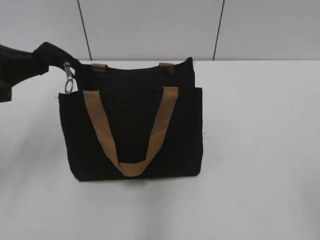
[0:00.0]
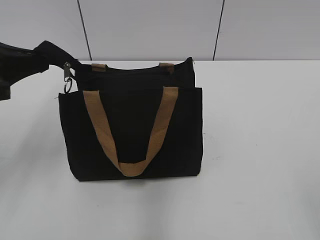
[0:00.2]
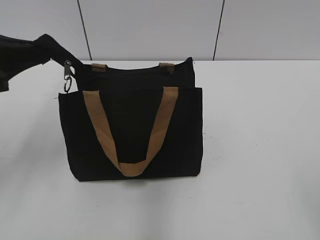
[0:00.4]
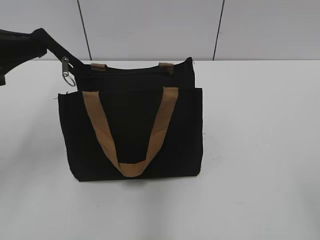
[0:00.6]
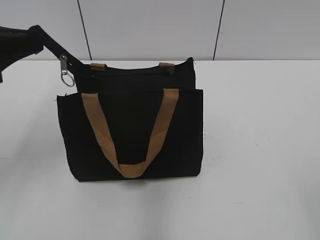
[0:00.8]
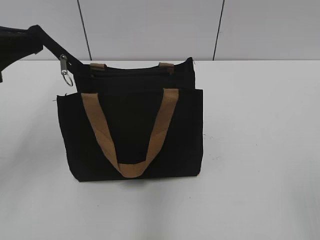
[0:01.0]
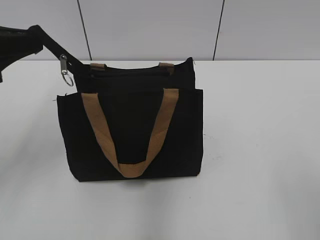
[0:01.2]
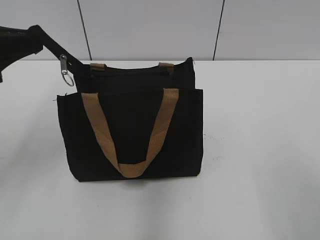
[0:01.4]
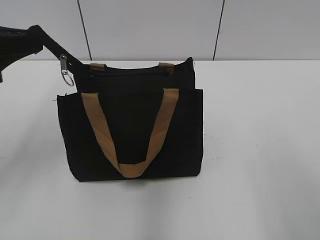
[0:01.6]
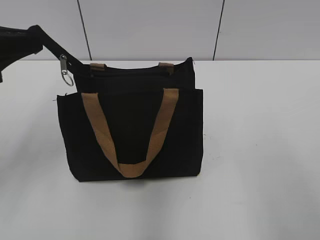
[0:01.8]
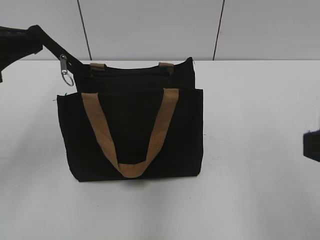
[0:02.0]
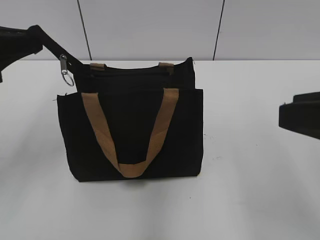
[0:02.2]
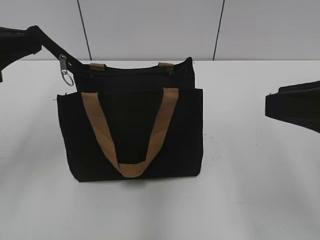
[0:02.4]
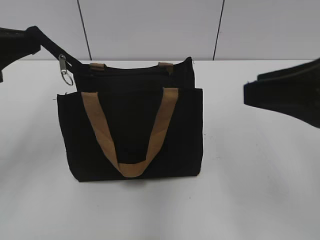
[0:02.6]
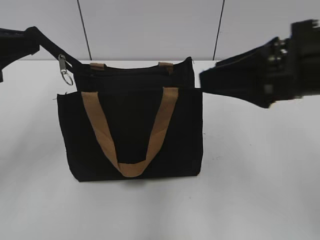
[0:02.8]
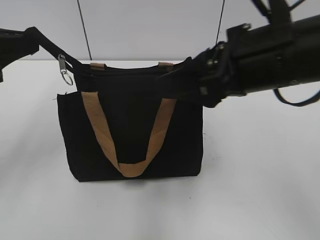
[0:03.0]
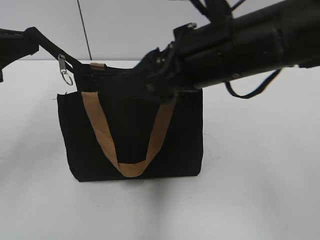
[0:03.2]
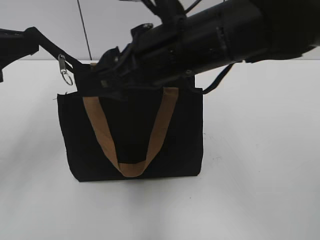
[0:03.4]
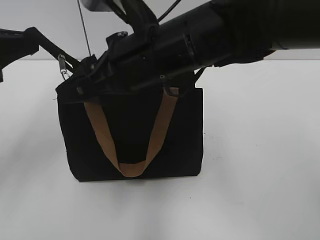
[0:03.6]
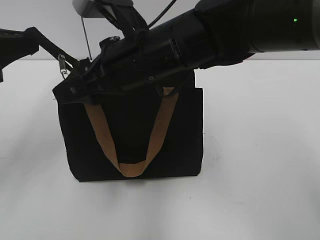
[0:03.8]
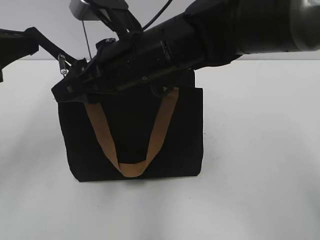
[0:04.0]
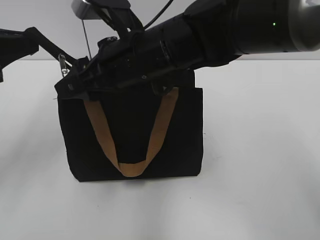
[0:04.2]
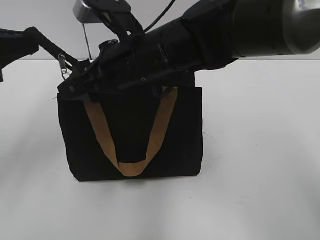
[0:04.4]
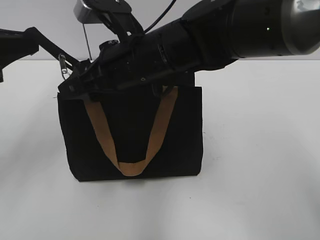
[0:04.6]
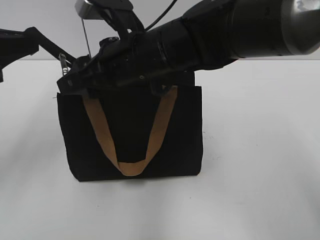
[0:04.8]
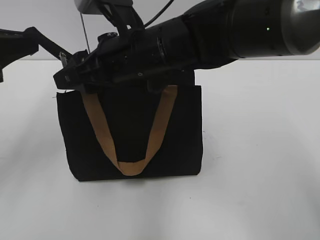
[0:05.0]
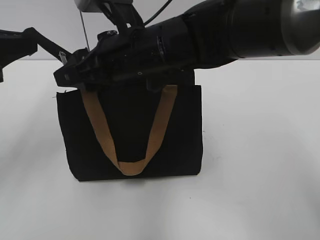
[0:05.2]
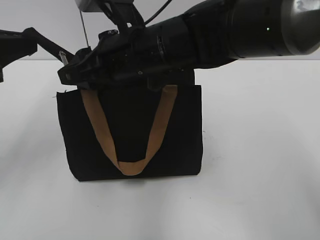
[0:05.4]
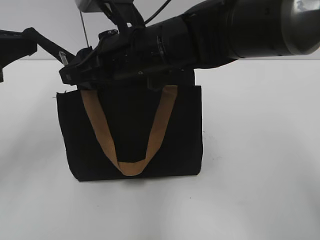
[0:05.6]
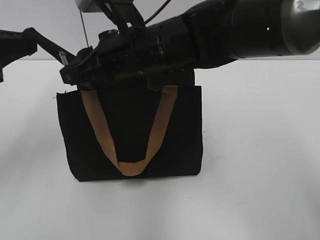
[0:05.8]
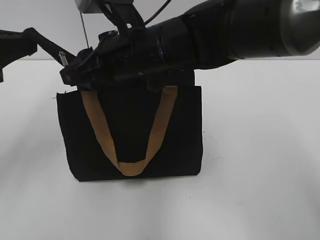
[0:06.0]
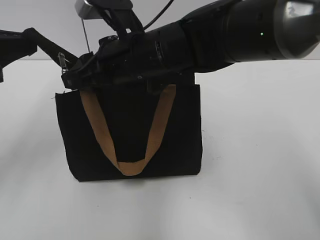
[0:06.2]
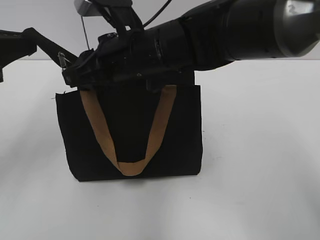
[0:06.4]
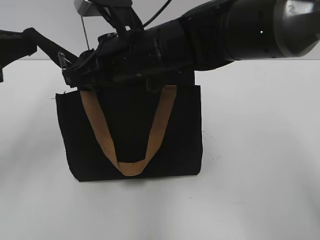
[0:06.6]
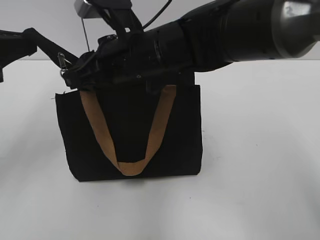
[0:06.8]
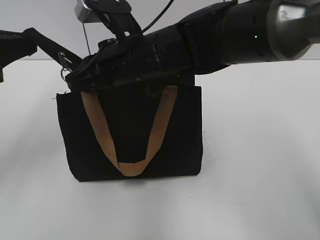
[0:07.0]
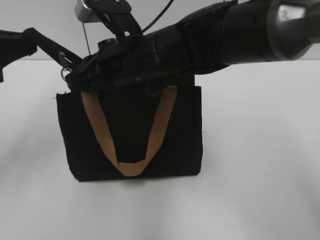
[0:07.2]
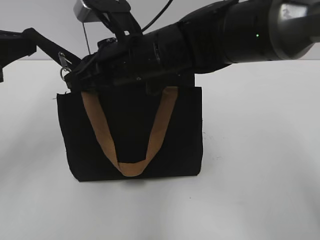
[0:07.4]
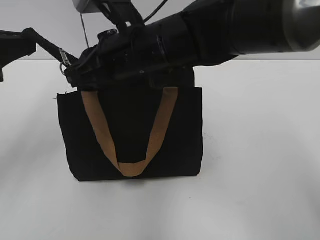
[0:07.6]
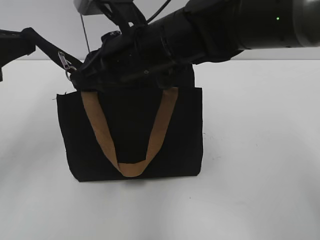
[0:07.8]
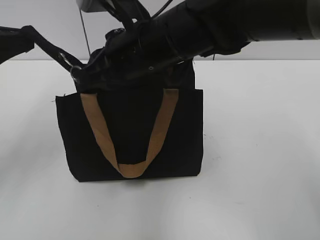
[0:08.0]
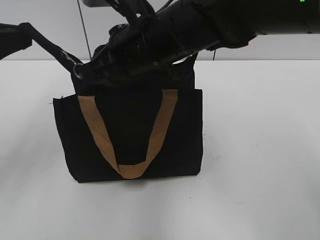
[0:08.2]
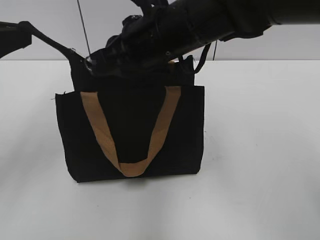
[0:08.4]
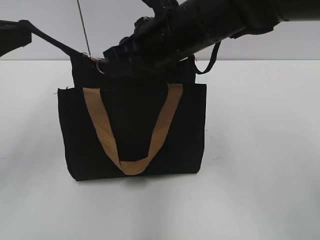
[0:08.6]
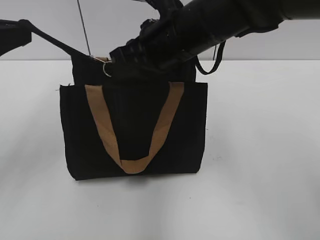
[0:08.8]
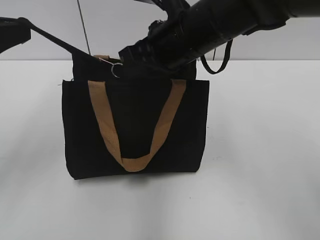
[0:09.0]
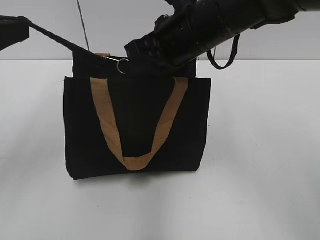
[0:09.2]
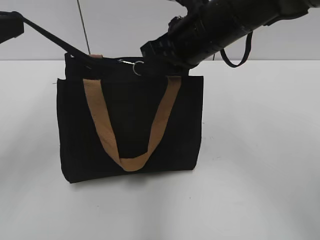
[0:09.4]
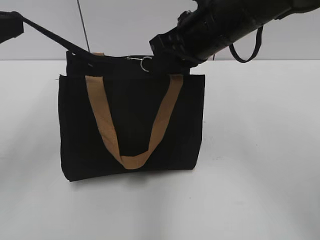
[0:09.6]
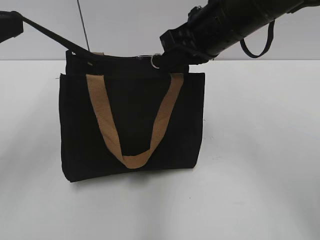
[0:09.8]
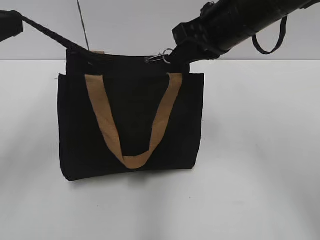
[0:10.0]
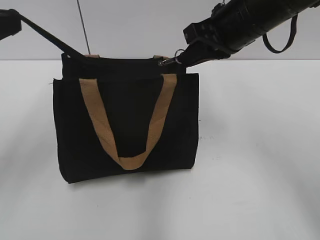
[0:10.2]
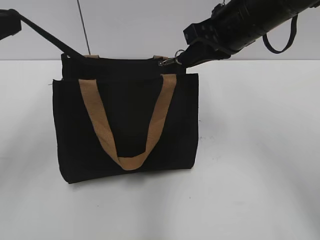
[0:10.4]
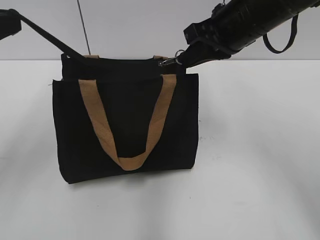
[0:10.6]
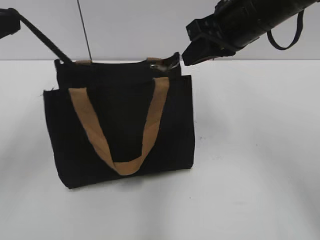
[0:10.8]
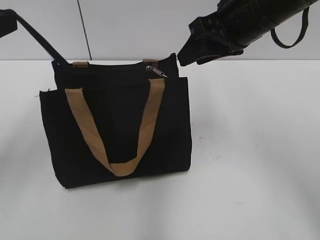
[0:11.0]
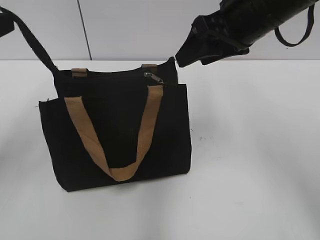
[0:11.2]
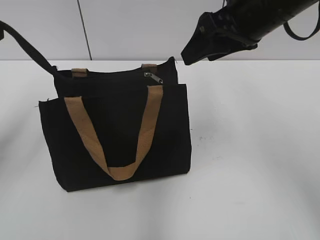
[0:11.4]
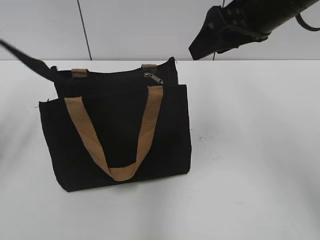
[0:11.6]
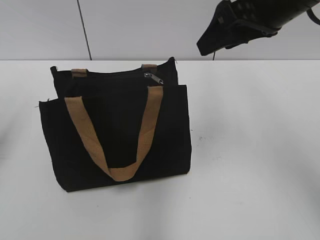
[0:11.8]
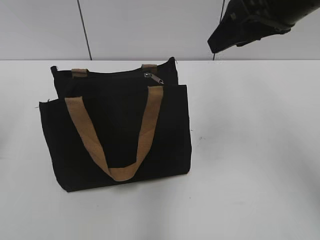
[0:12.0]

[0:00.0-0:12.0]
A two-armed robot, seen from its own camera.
Step, 0:00.0 to 0:10.8: Zip up the bag with your right hand.
Step, 0:11.0 to 0:11.6: Grab the zipper with your left hand.
0:00.0 to 0:01.6: The right gripper travels forward by roughly 5 cm.
0:01.6 to 0:03.0: The right gripper travels forward and to the left by about 20 cm.
0:03.0 to 0:04.4: The right gripper shifts approximately 15 cm to the left and forward.
0:04.4 to 0:06.0: The grippers move only a little.
0:06.0 to 0:07.6: The right gripper closes.
0:07.6 to 0:09.0: The right gripper travels to the right by about 5 cm.
0:09.0 to 0:10.4: The right gripper travels to the right by some 10 cm.
0:10.4 to 0:12.0: The left gripper goes roughly 10 cm to the left, and opens its fingers, while the right gripper shifts roughly 5 cm upward, and opens up.

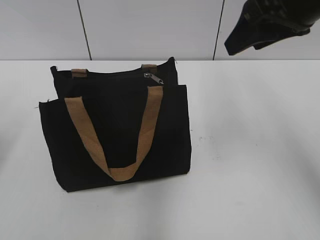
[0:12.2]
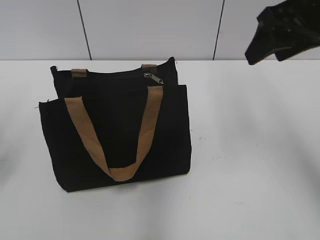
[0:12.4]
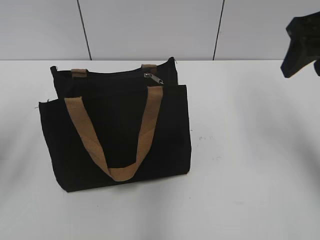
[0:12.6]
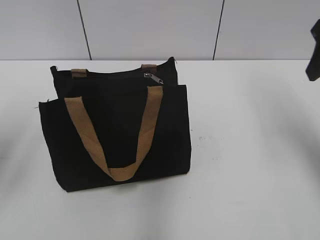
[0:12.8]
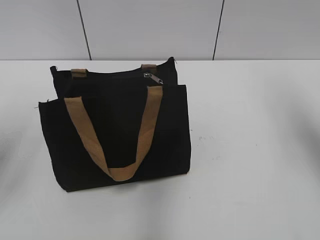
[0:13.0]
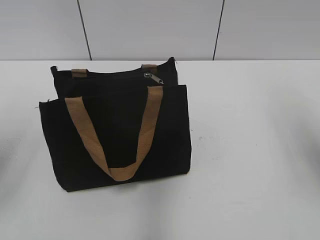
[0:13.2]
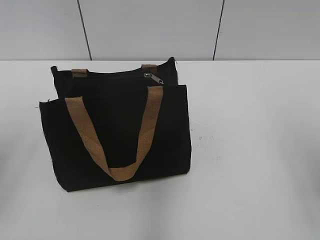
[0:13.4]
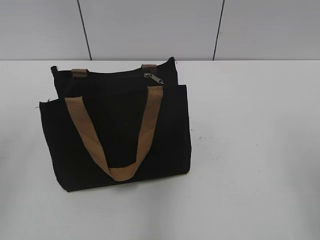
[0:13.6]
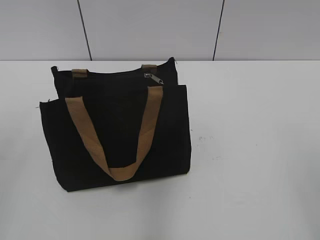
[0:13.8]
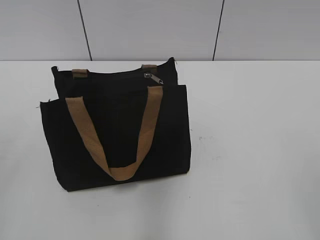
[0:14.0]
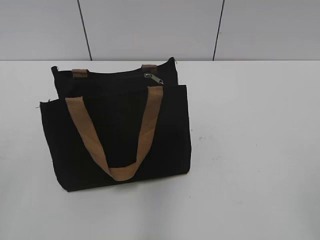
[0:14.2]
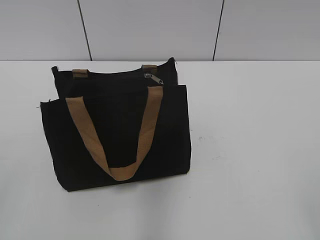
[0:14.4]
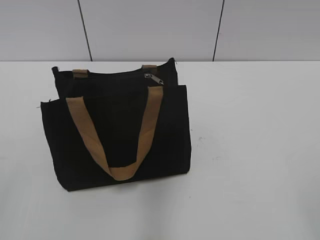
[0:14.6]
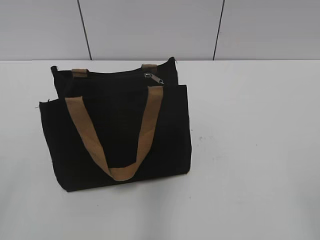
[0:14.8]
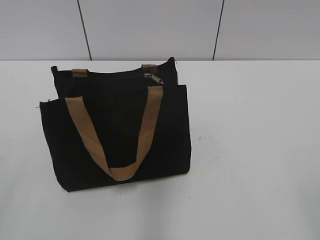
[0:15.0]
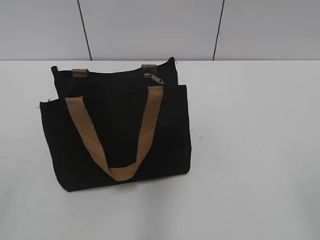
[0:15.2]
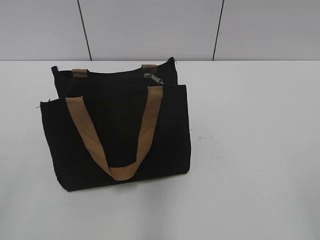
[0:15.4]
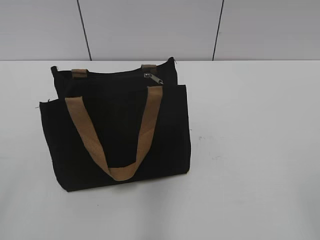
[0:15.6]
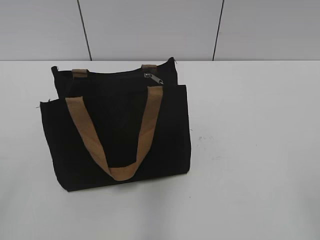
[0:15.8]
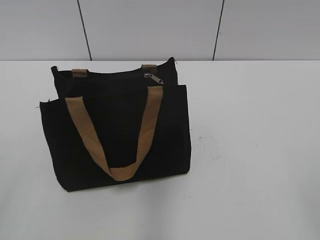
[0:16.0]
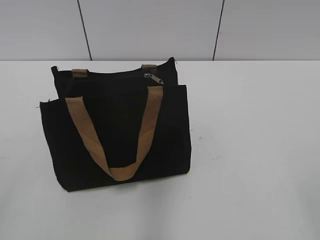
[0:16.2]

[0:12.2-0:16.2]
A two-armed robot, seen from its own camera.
0:12.2 to 0:13.6: The right gripper is displaced backward and to the right by roughly 20 cm.
0:14.8 to 0:16.2: Both grippers stay about where they are.
